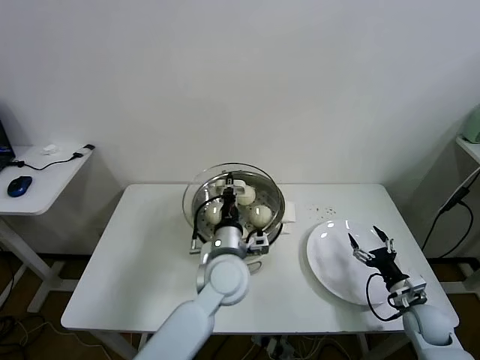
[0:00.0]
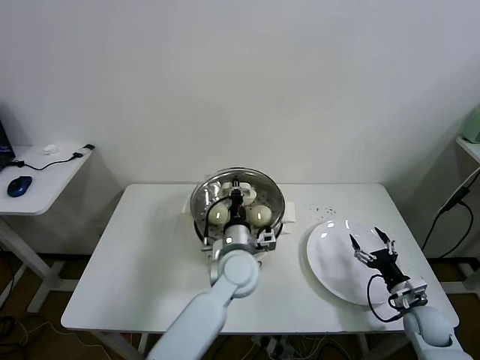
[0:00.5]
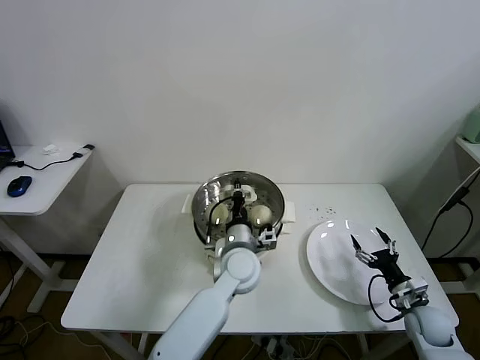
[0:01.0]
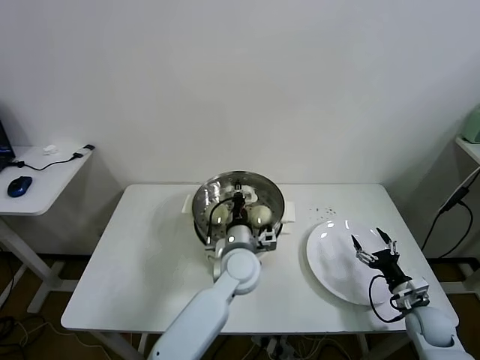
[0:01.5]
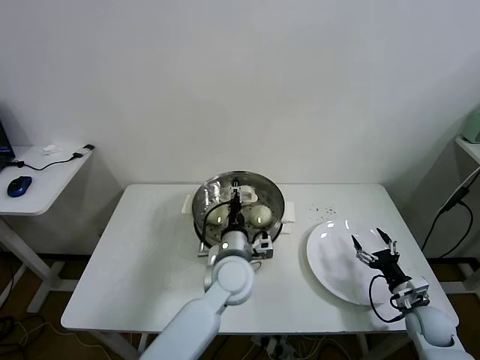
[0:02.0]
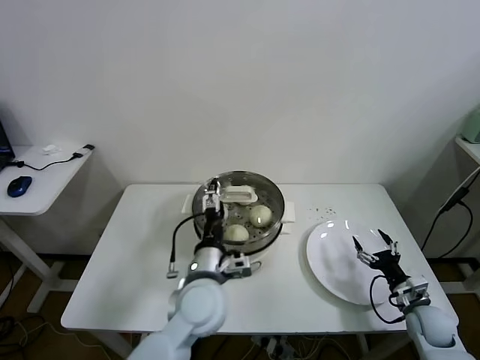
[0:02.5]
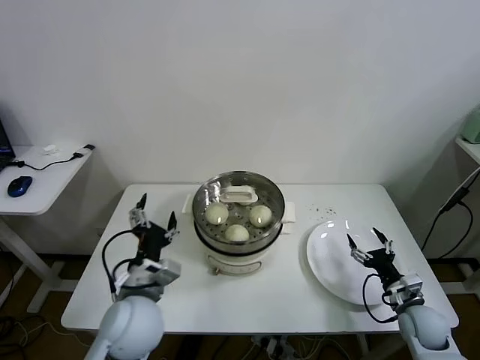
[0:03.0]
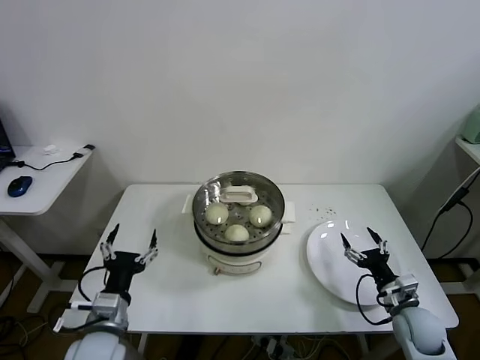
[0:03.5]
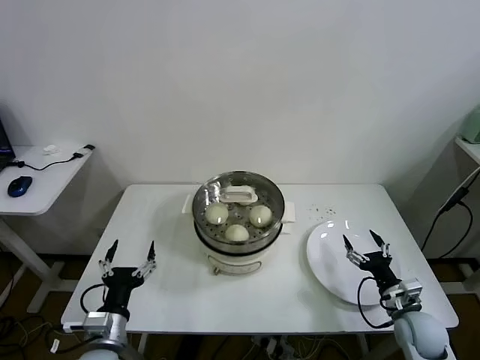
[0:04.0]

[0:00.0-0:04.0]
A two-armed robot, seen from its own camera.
Task of the whole recording: take steamed baozi put them in steamer.
Step, 0.0 to 2.0 s: Place the pot lid on the steamer with left gripper.
0.0 to 2.0 s: The left gripper opens its fingers.
2.0 to 4.0 s: The left gripper shifts approximately 30 cm to the left and backward, and opens. Meanwhile the right gripper shifts about 5 cm to the left.

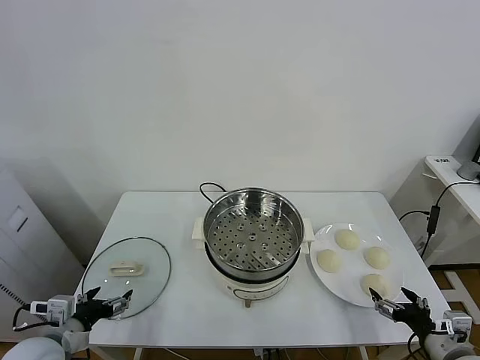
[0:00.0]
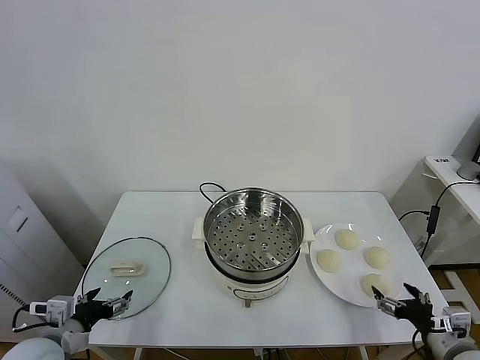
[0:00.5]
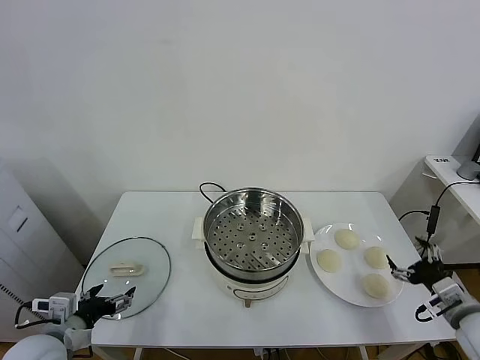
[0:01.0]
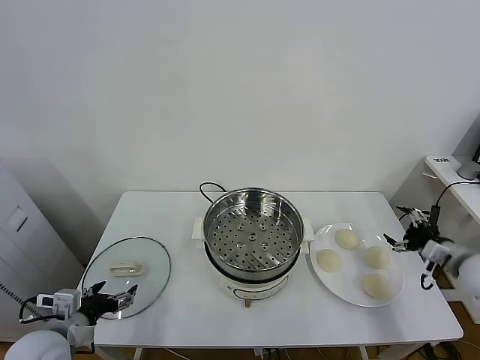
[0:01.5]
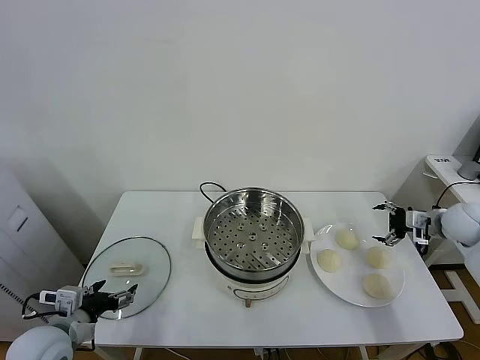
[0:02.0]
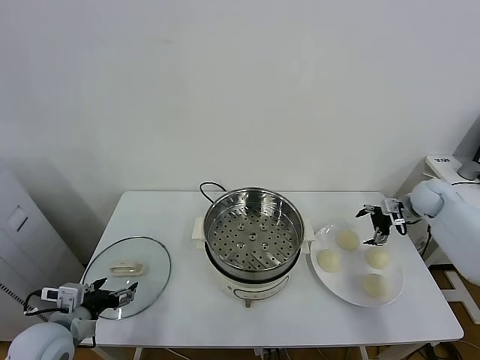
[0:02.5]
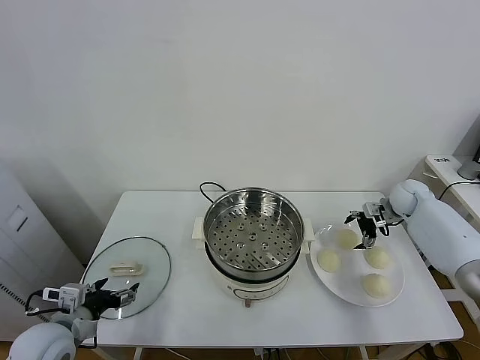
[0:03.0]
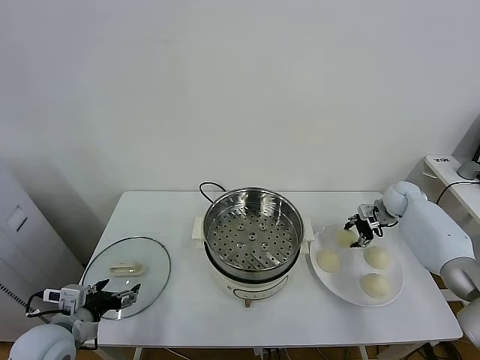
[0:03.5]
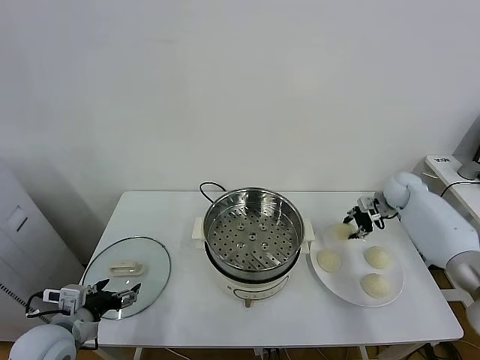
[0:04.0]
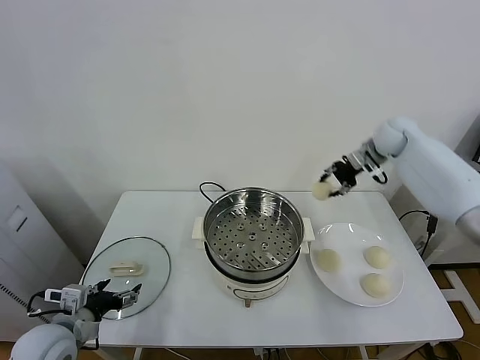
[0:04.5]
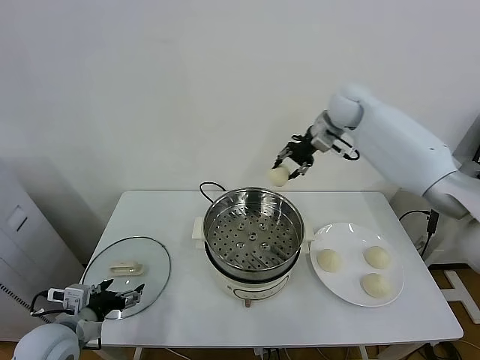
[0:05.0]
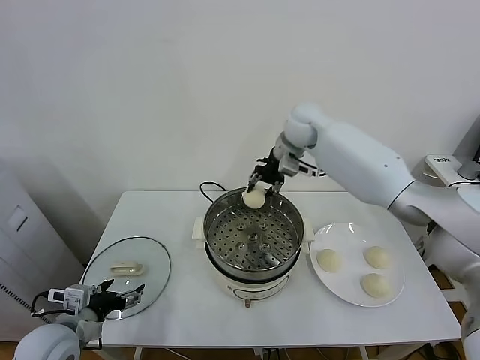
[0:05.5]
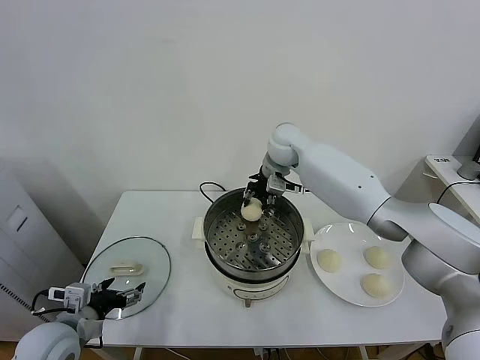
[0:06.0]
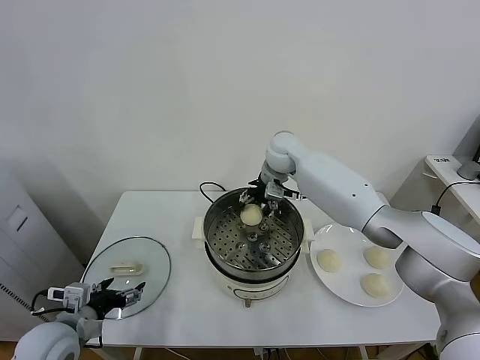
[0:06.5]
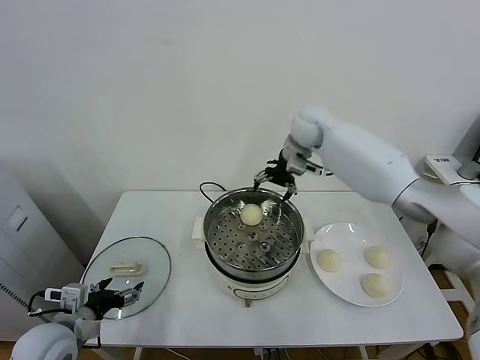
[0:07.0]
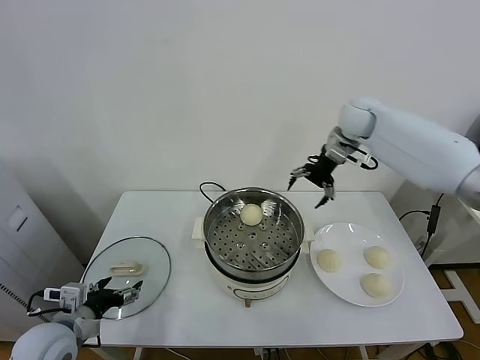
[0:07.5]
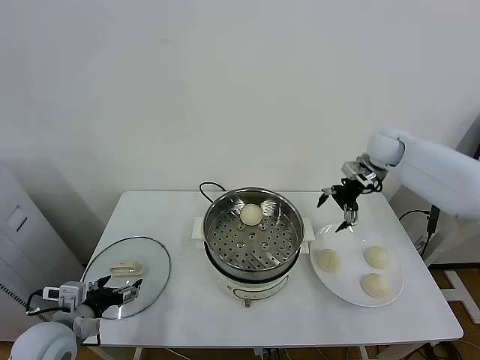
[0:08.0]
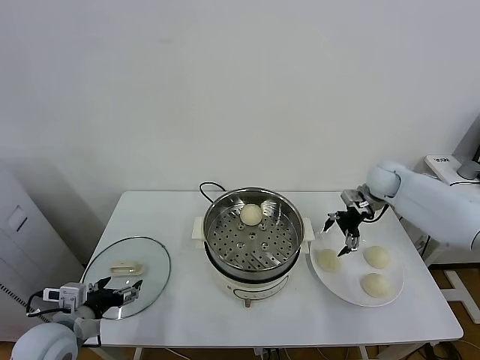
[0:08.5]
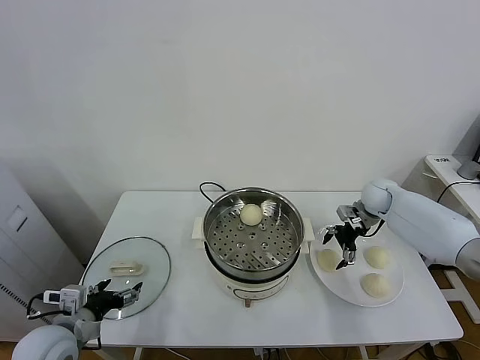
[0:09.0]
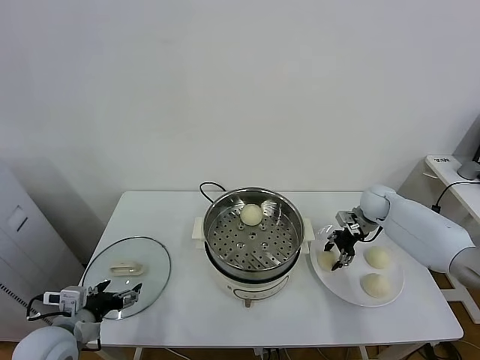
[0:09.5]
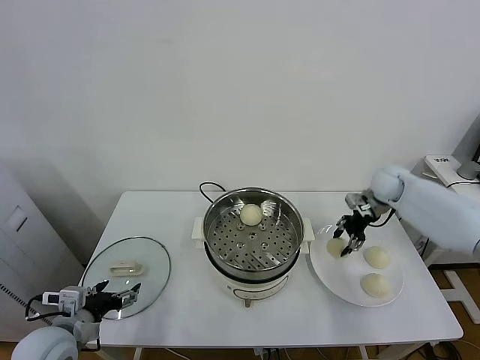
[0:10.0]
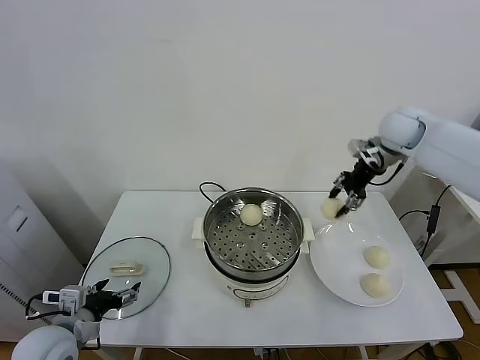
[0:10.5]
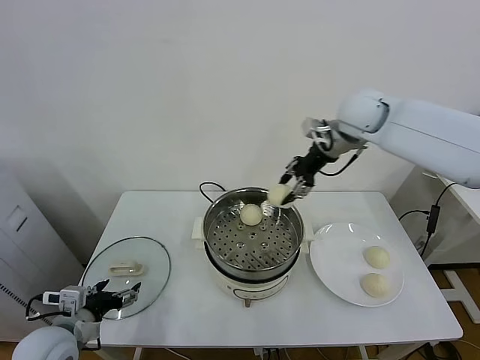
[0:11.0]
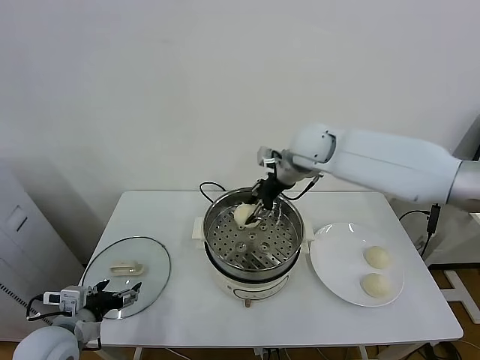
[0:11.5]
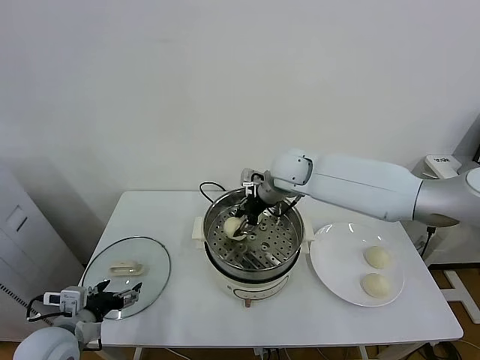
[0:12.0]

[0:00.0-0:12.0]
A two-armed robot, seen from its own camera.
Task of the whole recording: take steamed baozi put them in steamer.
Step, 0.0 to 3.5 s: Grasp the baozi in the plate with right gripper.
Step, 4.0 to 6.5 s: Place the baozi on the steamer with right gripper.
Step, 7.0 to 9.5 s: Grasp the baozi in the plate with right gripper.
2.0 to 4.0 s: The right gripper goes about 15 cm forward and to the left, and closes.
4.0 to 6.0 s: The right gripper is displaced to the left by some 35 cm.
6.0 to 8.0 s: The right gripper heads to the right, covering some 25 cm, and opens its fingers.
8.0 to 10.0 s: The right gripper travels downward by roughly 5 cm, and closes up.
10.0 to 12.0 s: The right gripper goes roughly 30 cm to the left.

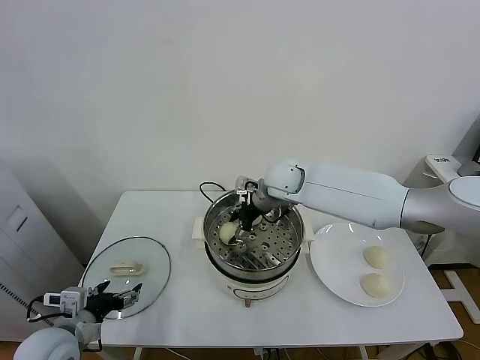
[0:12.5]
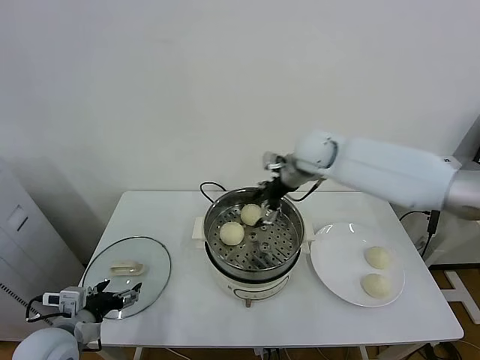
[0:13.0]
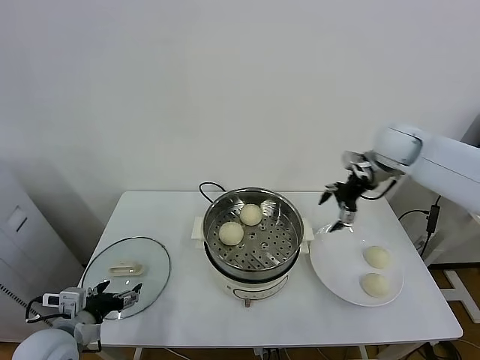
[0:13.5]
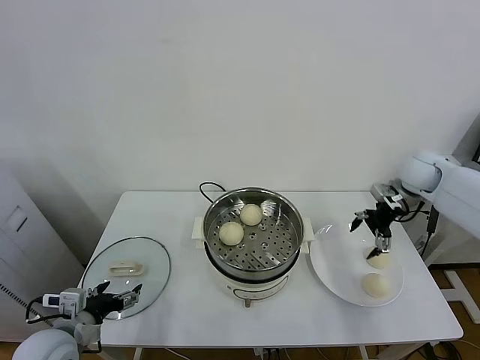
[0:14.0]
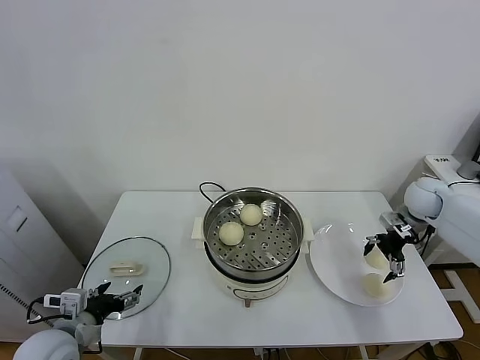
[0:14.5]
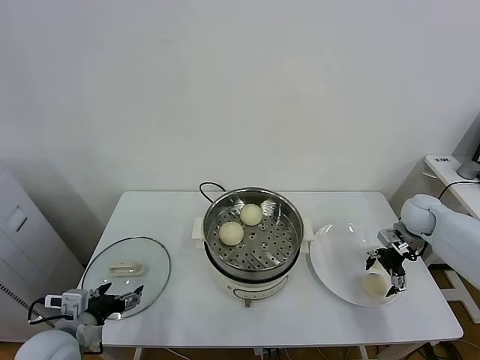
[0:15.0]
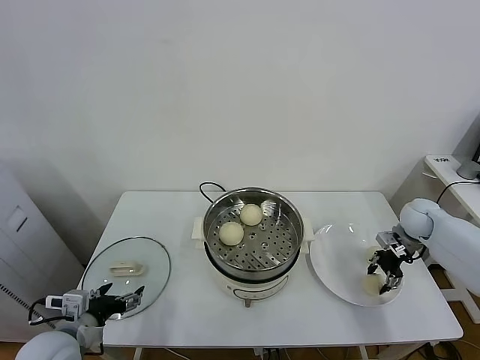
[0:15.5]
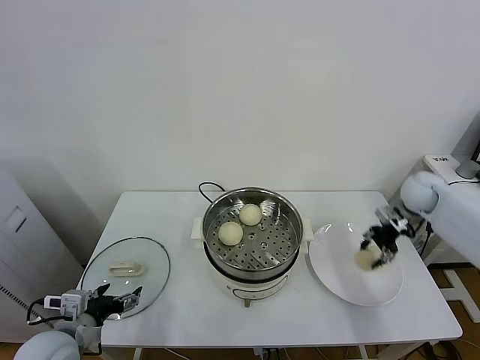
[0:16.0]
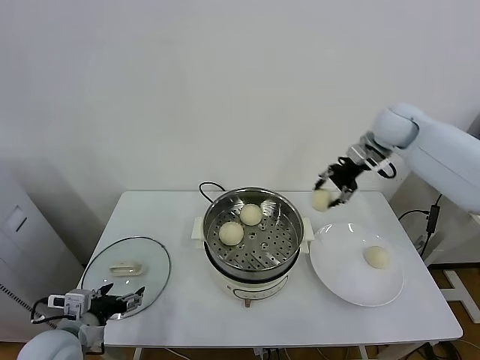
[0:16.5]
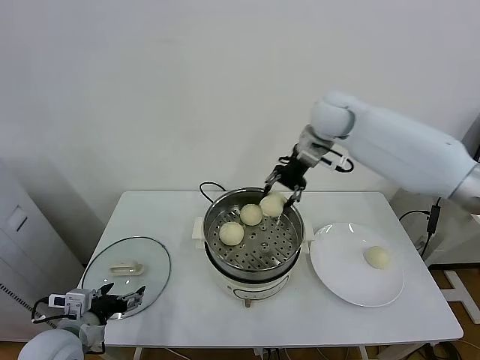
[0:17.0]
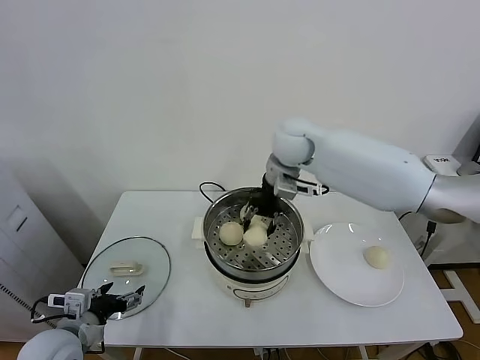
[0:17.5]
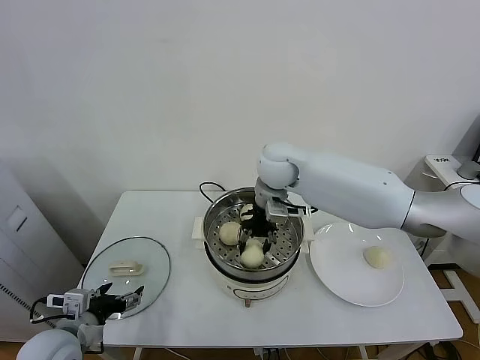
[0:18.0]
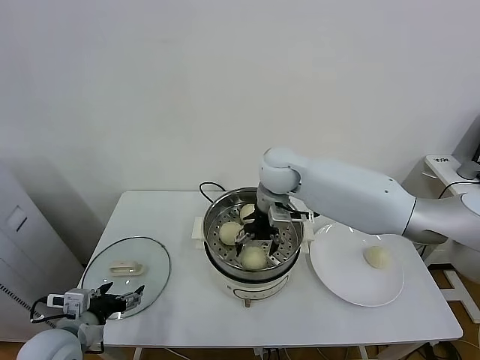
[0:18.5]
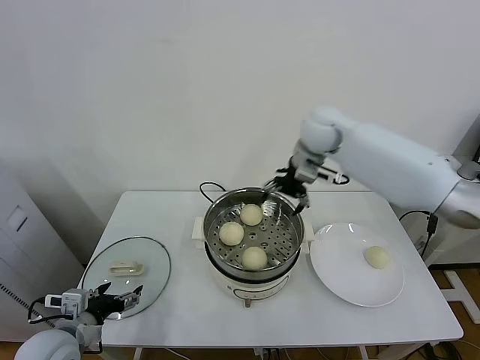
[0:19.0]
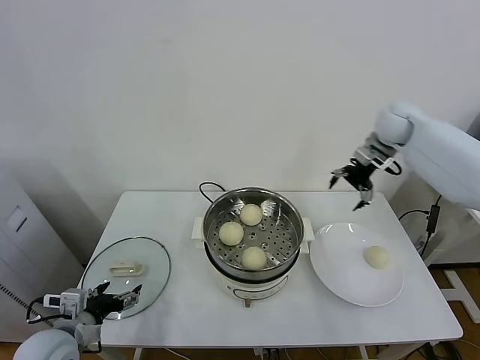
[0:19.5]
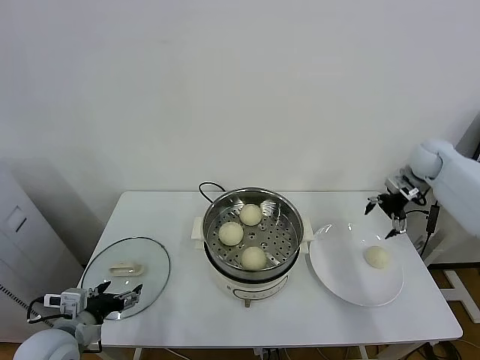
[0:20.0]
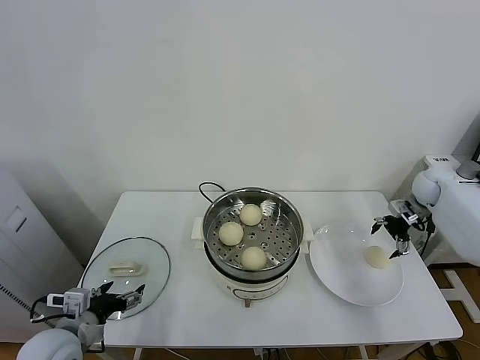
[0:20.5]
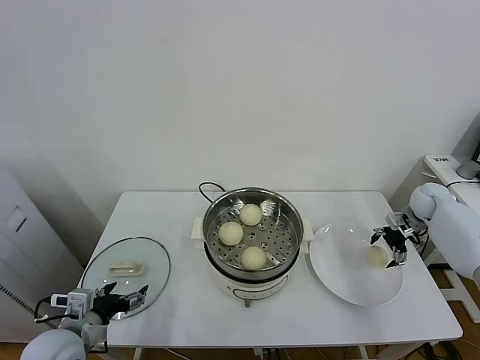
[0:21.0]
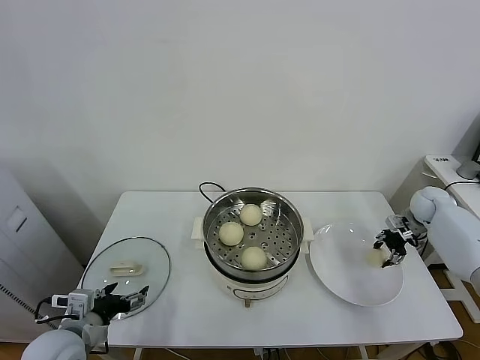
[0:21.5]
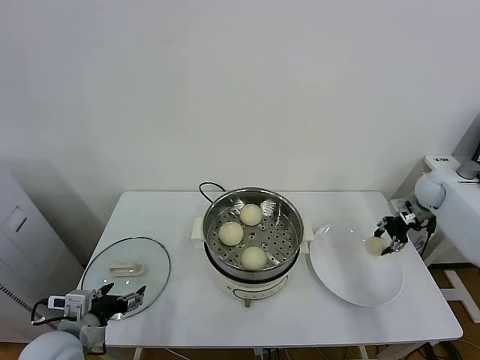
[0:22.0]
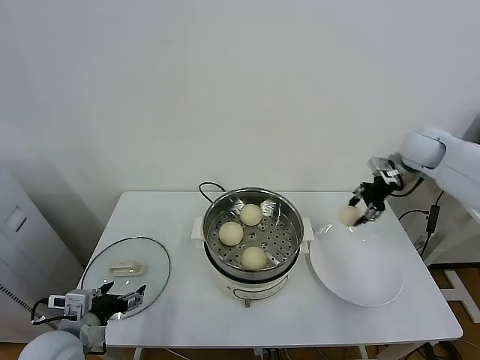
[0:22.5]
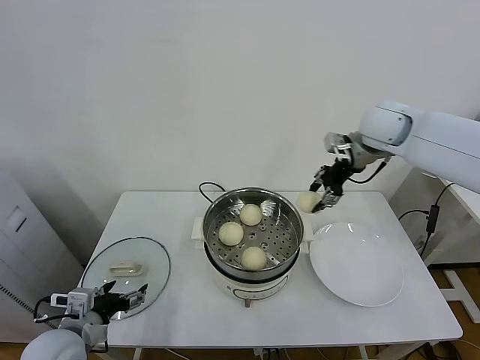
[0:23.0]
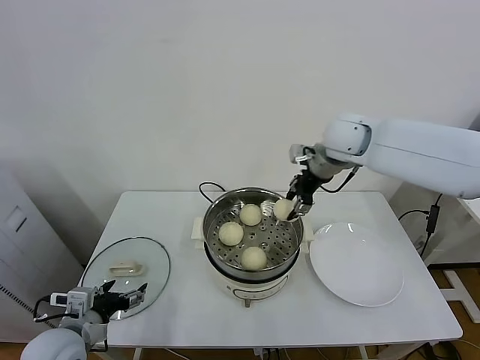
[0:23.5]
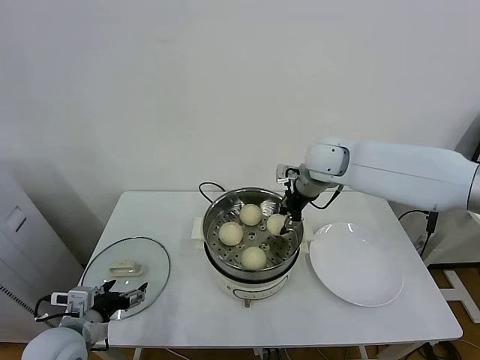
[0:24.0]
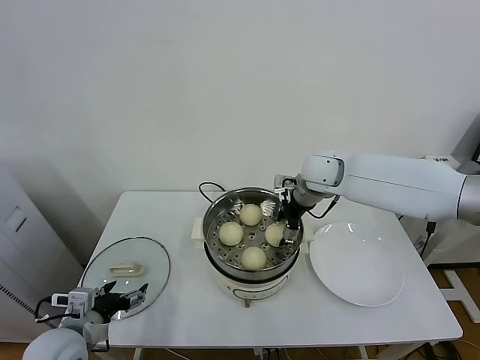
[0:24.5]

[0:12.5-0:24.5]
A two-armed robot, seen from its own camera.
Task of the whole recording: take steamed baozi put them in steamer.
Step, 13.0 to 15.5 s: Grasp the baozi in the plate with right gripper.
Step, 16.0 to 18.5 s: Place the baozi on the steamer with right gripper.
Step, 19.0 to 21.5 s: Grasp the baozi in the plate with right gripper.
12.5 to 14.5 s: The right gripper is displaced to the right by approximately 35 cm.
14.5 to 16.5 s: The right gripper moves upward and to the left, some 25 cm, and closes its fingers.
16.5 to 18.5 s: The right gripper heads to the left, covering some 25 cm, and opens.
18.5 to 20.5 s: The right gripper goes about 40 cm to the right.
20.5 to 22.5 s: The right gripper moves upward and to the left, approximately 20 cm, and closes its fingers.
22.5 to 24.5 s: The right gripper goes approximately 20 cm to the left, and opens.
